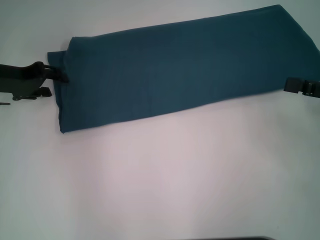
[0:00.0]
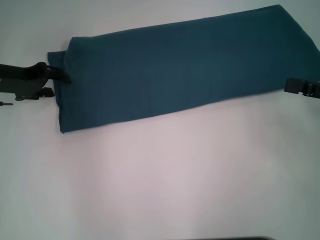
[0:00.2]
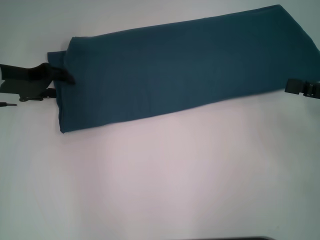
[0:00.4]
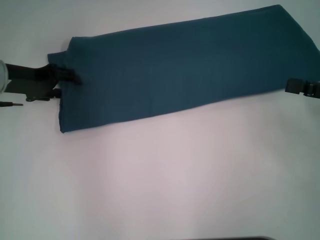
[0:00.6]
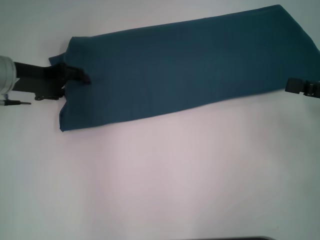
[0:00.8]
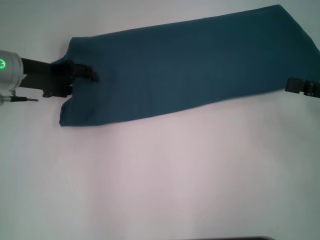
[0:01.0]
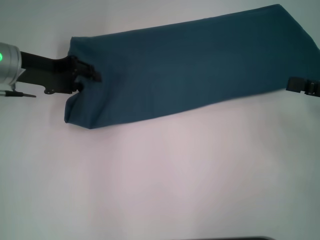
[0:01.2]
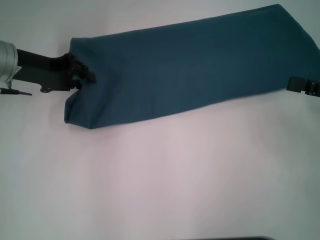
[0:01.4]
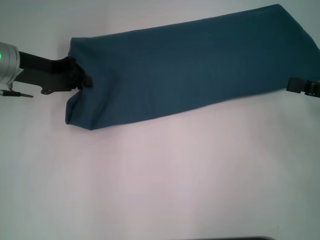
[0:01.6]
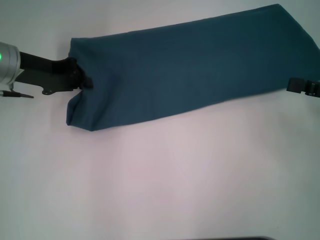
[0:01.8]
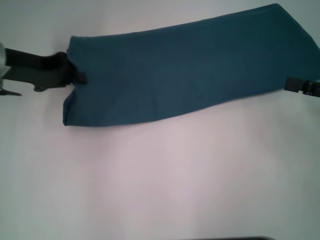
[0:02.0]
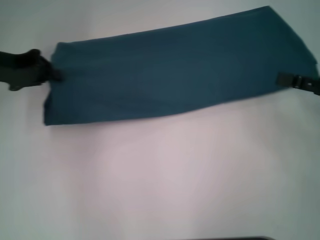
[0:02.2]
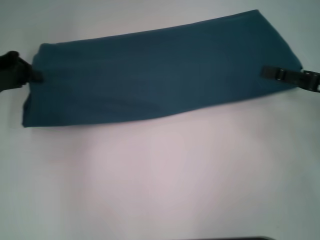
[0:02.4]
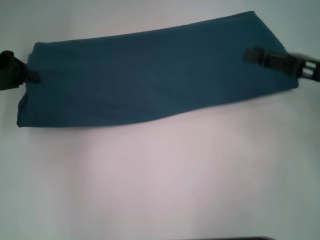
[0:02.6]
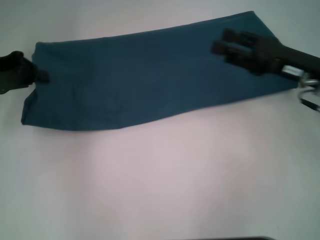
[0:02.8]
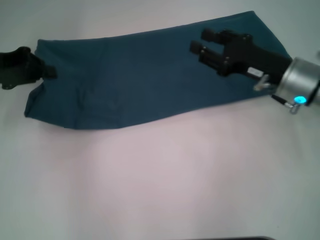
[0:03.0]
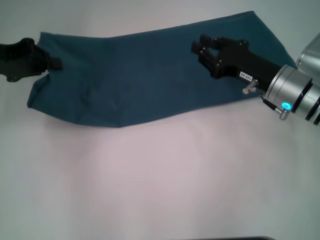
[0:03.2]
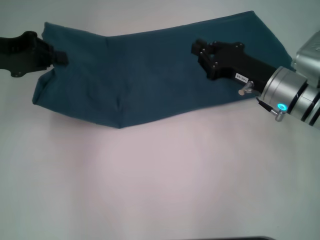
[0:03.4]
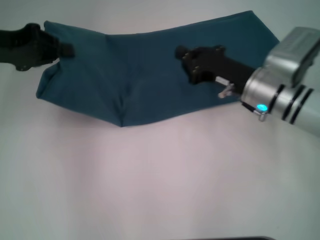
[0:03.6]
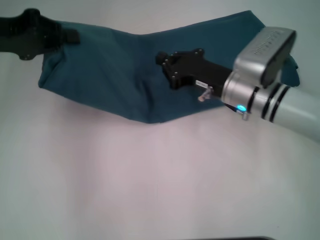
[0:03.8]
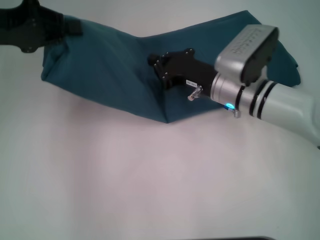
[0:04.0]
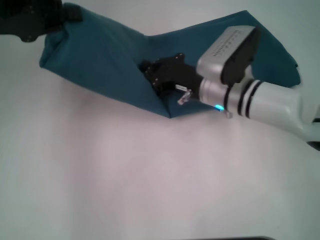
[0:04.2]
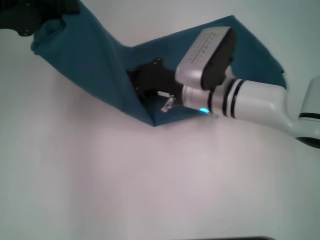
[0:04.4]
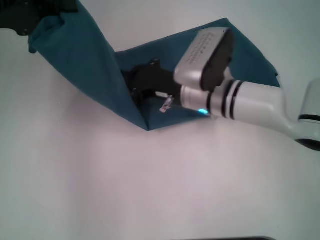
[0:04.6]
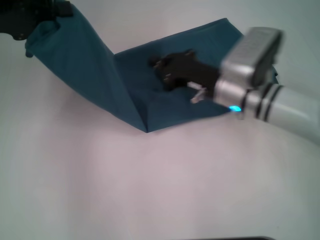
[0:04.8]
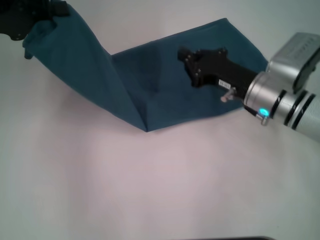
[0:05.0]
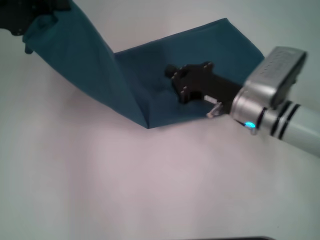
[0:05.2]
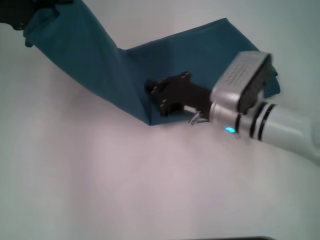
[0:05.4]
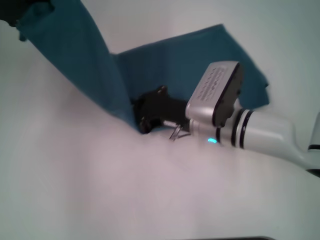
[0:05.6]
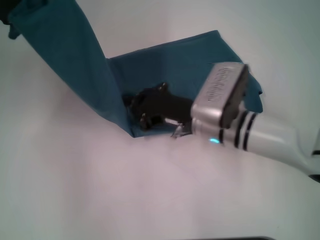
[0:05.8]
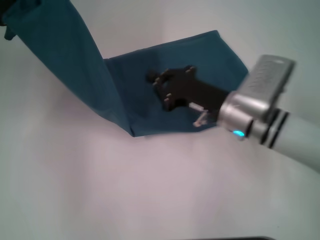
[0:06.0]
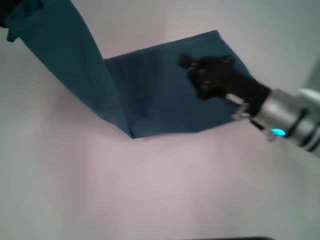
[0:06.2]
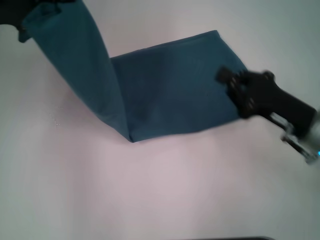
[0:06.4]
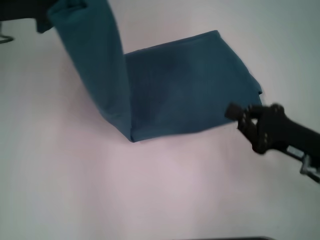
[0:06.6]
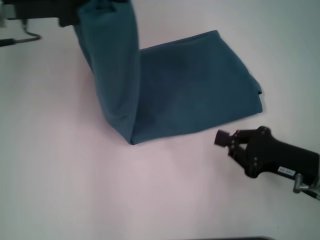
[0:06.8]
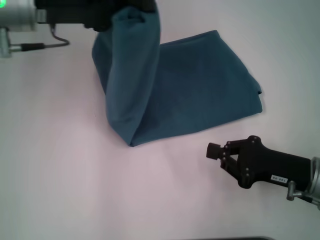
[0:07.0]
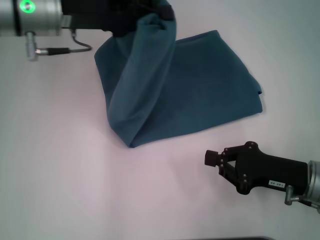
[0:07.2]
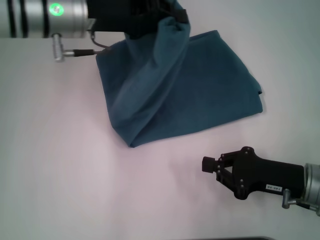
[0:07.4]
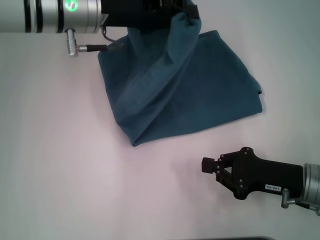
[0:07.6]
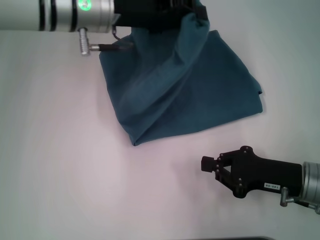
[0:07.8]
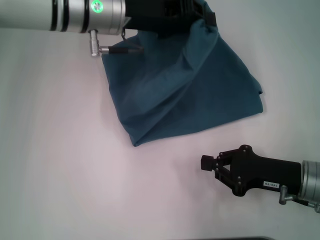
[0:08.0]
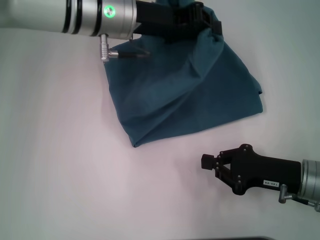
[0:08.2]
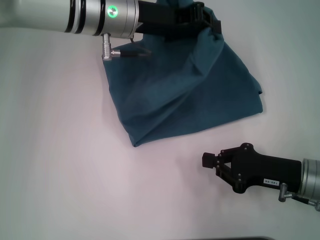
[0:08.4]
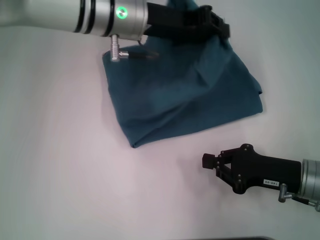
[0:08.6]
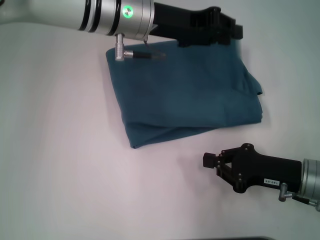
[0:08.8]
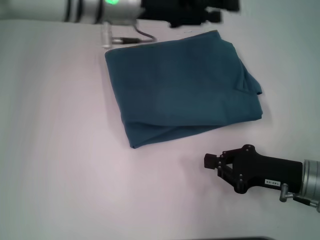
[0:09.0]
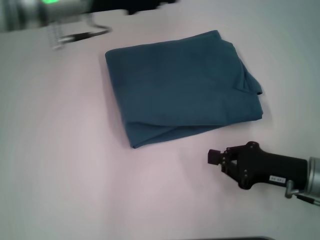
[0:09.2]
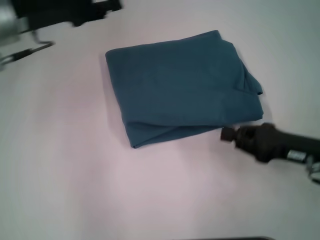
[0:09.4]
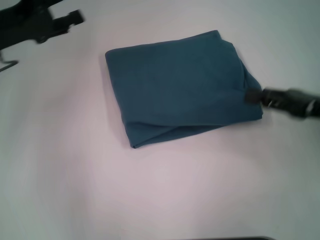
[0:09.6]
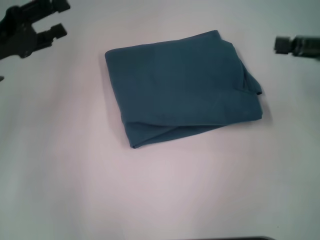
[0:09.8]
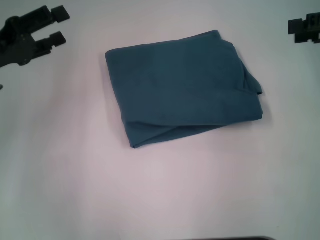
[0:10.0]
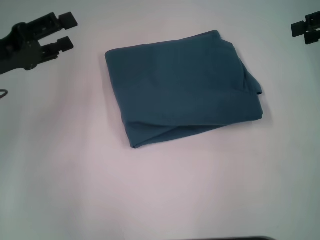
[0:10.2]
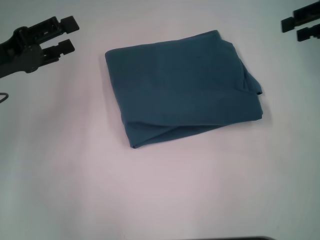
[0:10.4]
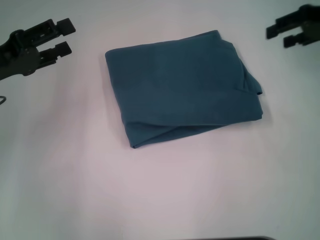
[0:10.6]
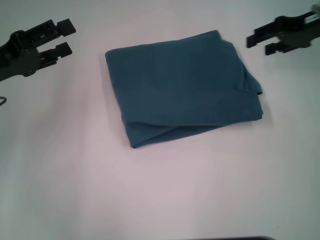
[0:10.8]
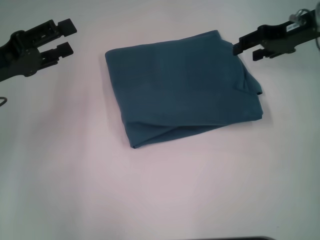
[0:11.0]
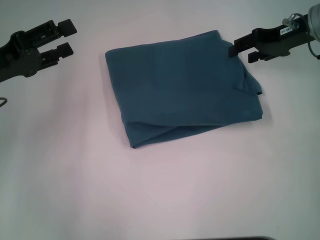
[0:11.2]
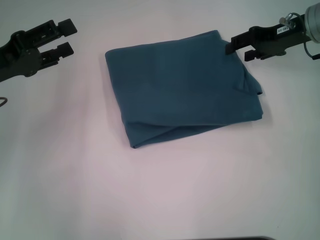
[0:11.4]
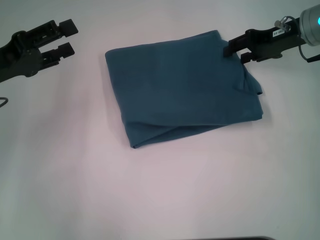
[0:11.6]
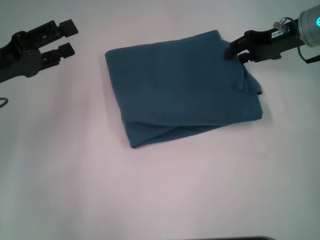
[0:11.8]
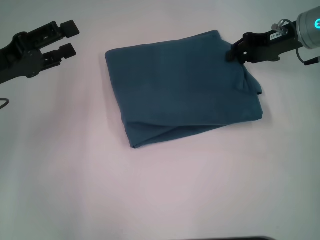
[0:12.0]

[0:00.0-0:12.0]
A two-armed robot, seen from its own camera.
Step, 0:00.0 to 0:04.6: Press the middle of the clothes with your right hand.
Step, 0:04.8 to 0:08.8: Fold the clothes to the left.
0:00.0 to 0:01.6: The grippers make only small movements.
0:01.6 to 0:03.0: The right gripper goes roughly 15 cm to the left and forward. The left gripper is displaced to the left by about 5 cm, and closes.
0:03.0 to 0:04.4: The left gripper moves upward, about 5 cm. Meanwhile the right gripper moves to the left, roughly 15 cm, and closes its fingers.
0:04.4 to 0:06.0: The right gripper moves left and right over roughly 10 cm, changing direction 2 times.
0:06.0 to 0:07.6: The right gripper travels to the right and backward by roughly 15 cm. Meanwhile the left gripper goes some 20 cm to the right.
0:07.6 to 0:09.0: The grippers move only a little.
0:09.0 to 0:10.4: The left gripper goes about 20 cm to the left and backward, and opens up. The right gripper heads upward, forward and to the right, covering approximately 30 cm, and opens its fingers.
0:10.4 to 0:12.0: The right gripper travels downward and to the left by approximately 10 cm.

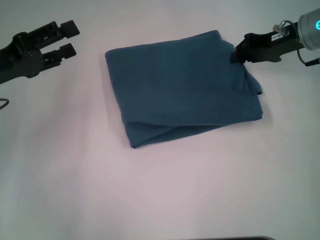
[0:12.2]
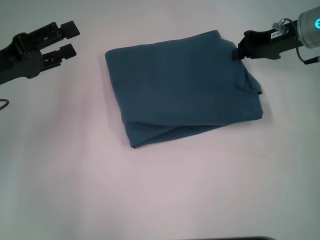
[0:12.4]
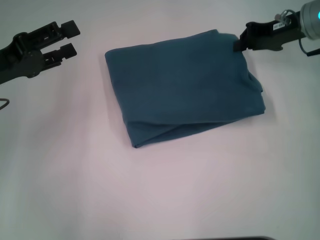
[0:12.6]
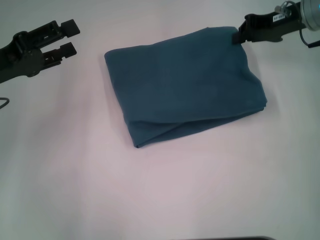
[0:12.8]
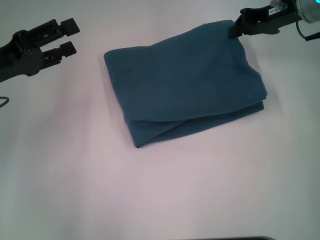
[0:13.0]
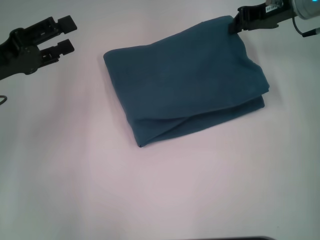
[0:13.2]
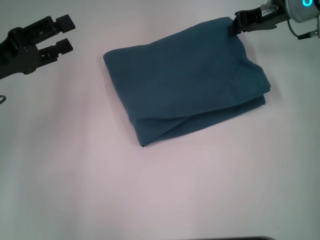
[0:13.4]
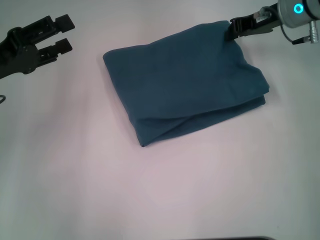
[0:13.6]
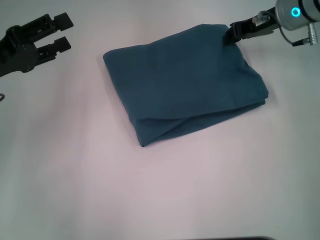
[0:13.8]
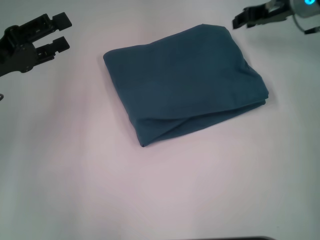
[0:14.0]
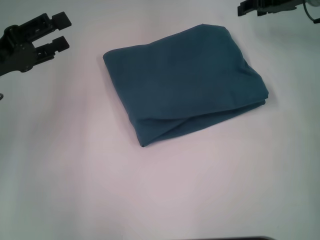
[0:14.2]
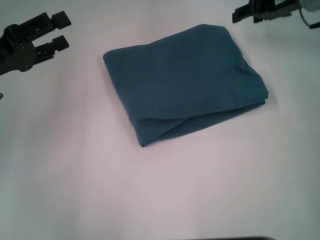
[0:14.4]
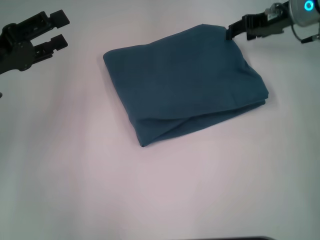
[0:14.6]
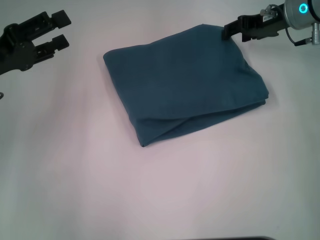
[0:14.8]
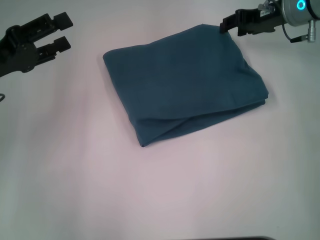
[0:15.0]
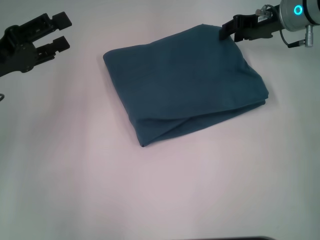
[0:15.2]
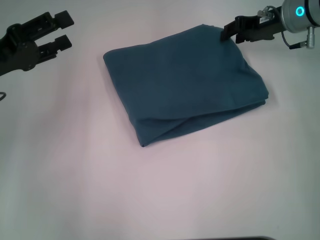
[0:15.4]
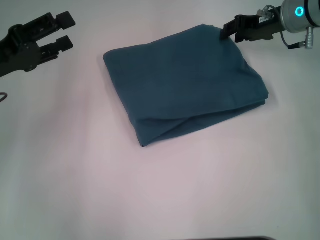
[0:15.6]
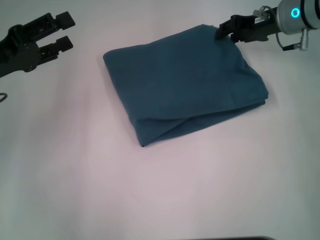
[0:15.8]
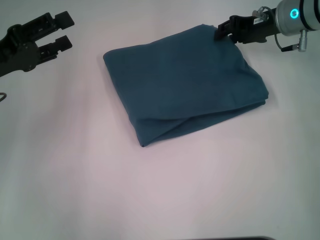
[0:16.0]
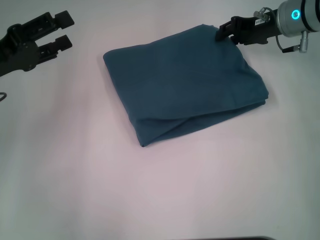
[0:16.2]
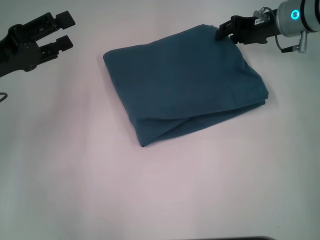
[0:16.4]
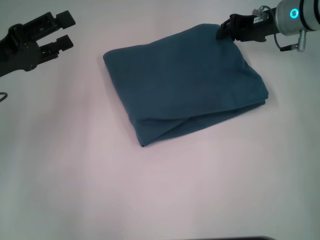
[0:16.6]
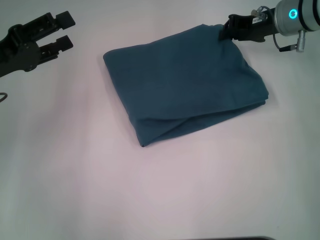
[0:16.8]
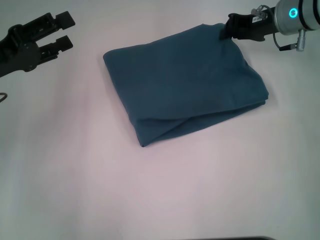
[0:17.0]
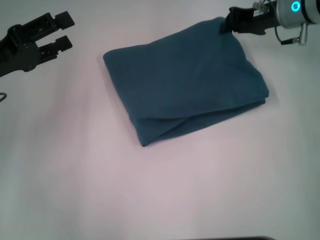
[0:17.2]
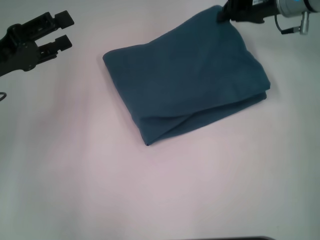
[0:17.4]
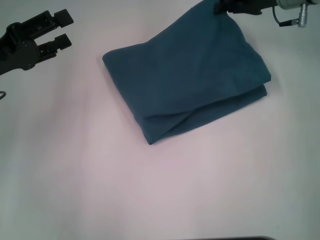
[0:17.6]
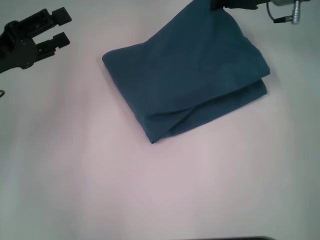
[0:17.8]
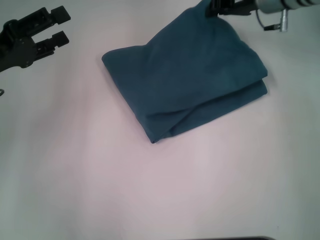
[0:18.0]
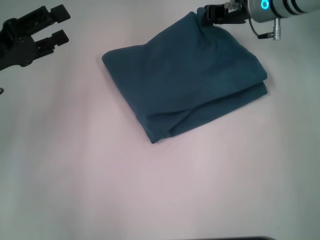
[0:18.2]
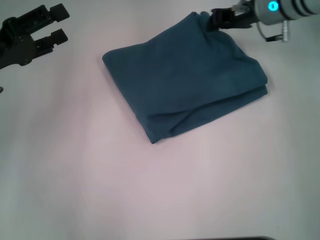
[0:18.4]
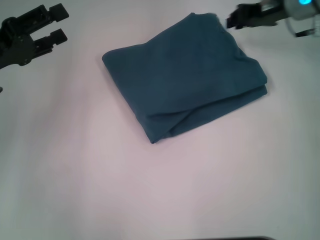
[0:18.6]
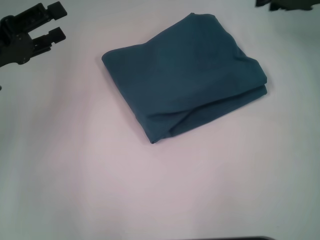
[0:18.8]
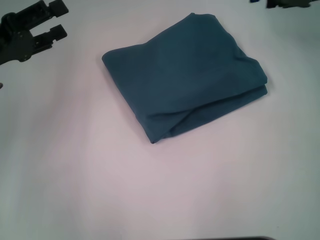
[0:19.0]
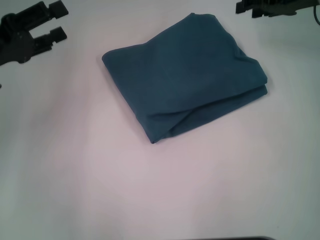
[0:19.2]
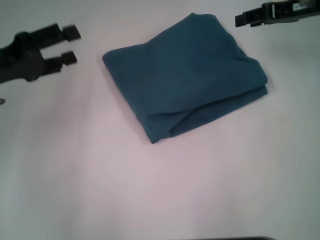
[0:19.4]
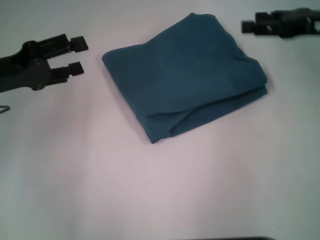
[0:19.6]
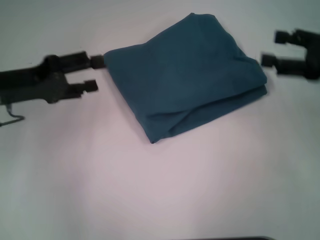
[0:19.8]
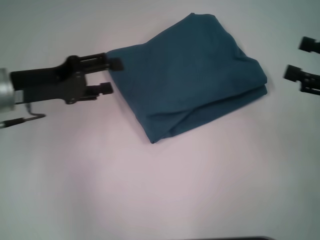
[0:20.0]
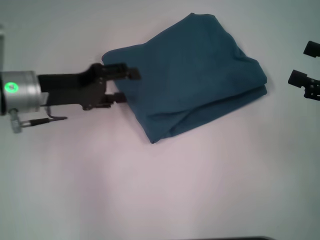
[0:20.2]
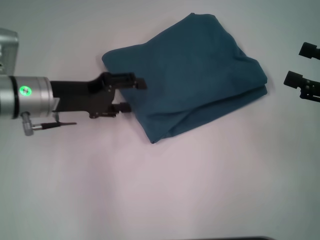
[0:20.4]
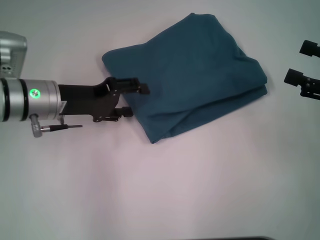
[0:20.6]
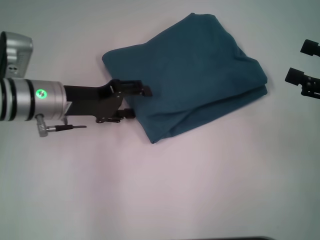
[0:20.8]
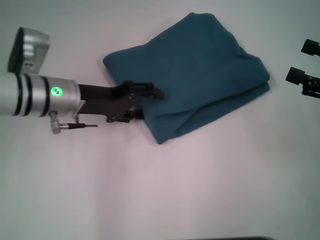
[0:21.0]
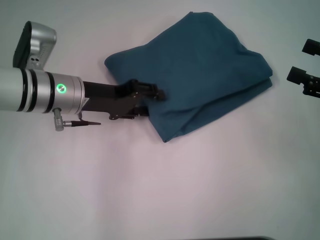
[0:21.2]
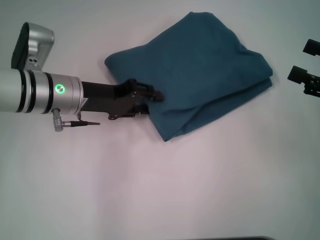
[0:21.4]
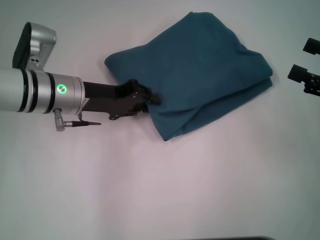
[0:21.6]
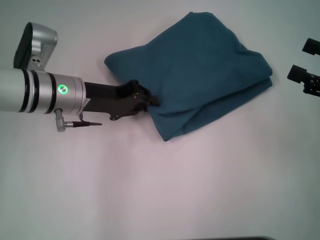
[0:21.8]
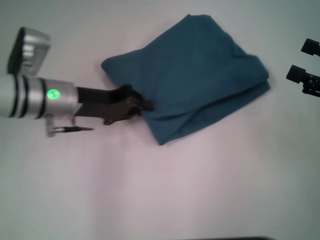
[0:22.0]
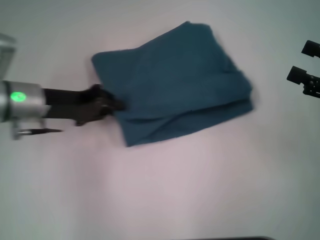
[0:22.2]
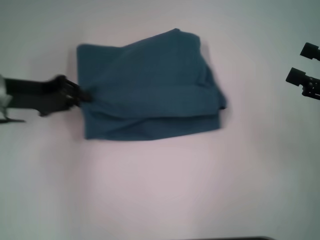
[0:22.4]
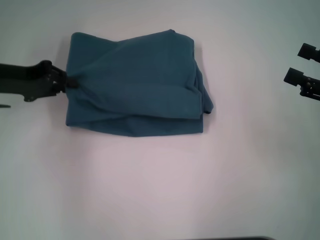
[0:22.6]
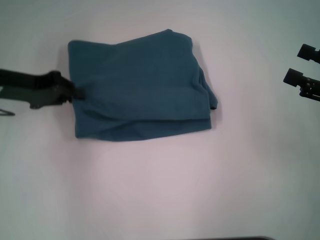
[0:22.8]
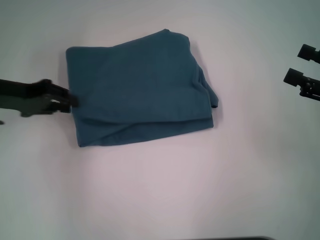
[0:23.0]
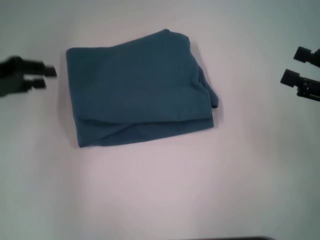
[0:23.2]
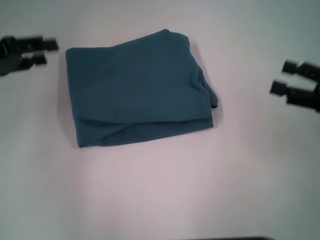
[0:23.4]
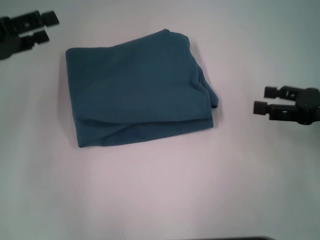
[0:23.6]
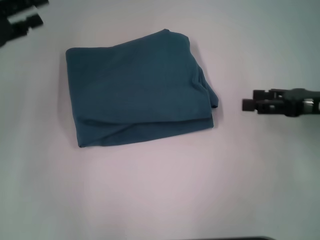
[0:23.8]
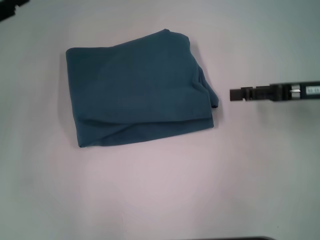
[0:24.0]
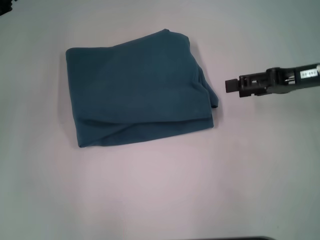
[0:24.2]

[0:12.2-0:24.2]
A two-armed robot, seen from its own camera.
0:13.8 to 0:15.2: The right gripper opens.
0:15.2 to 0:16.6: The grippers move only a little.
0:16.6 to 0:18.2: The right gripper closes its fingers.
0:18.2 to 0:19.8: The right gripper is displaced backward and to the right by about 20 cm, and opens.
0:19.8 to 0:21.2: The right gripper shifts approximately 5 cm backward. The left gripper goes roughly 10 cm to the right.
0:21.2 to 0:22.6: The left gripper travels to the left by about 10 cm, and closes.
0:22.6 to 0:24.2: The right gripper goes approximately 10 cm forward and to the left, while the left gripper ends up about 5 cm from where it was, and opens its fingers.
